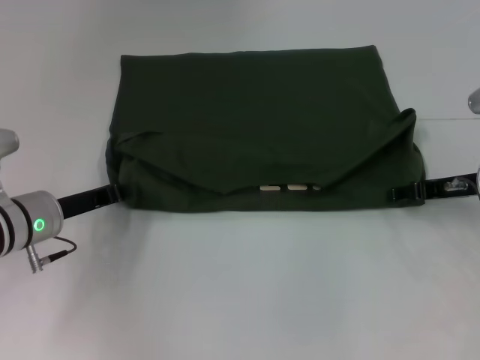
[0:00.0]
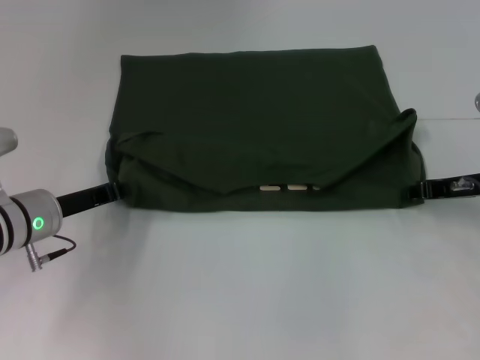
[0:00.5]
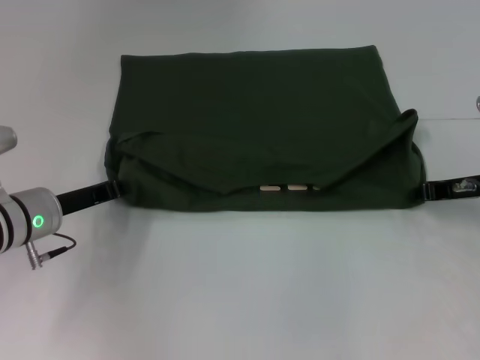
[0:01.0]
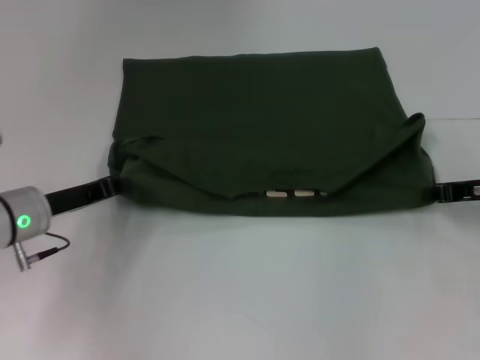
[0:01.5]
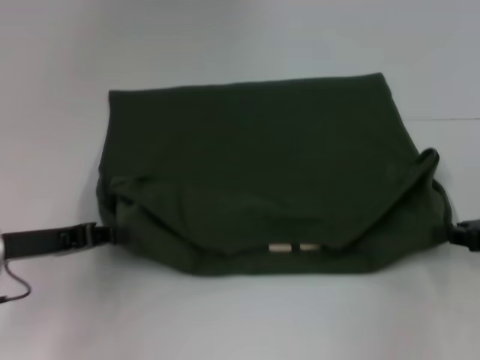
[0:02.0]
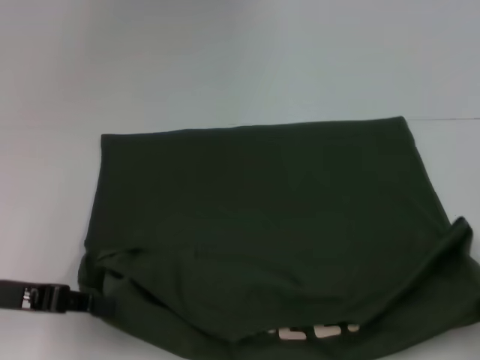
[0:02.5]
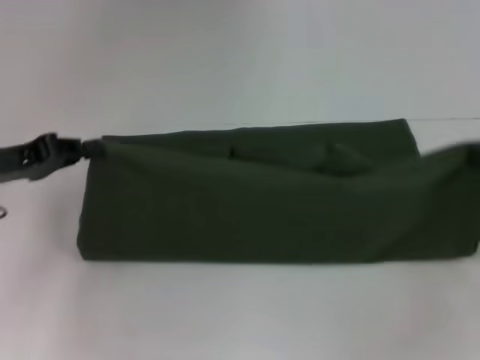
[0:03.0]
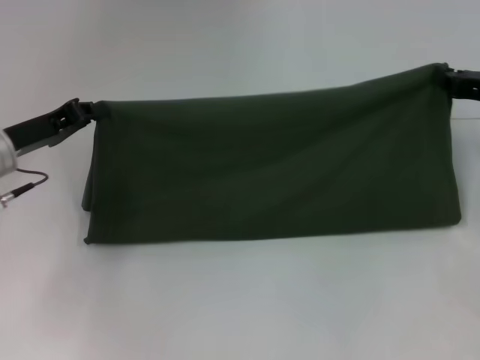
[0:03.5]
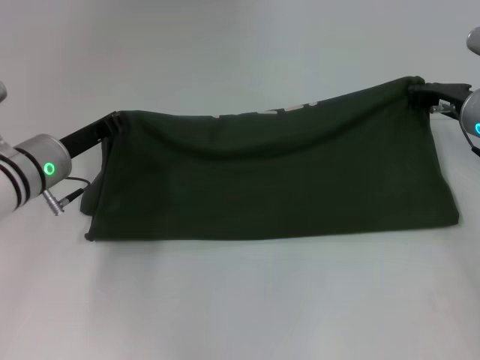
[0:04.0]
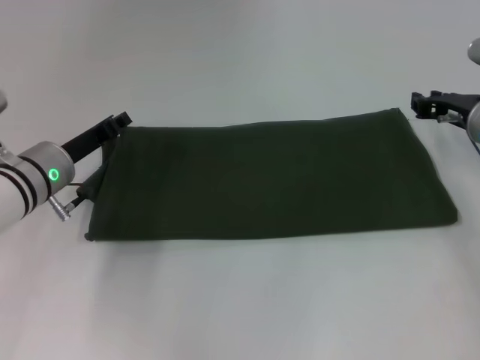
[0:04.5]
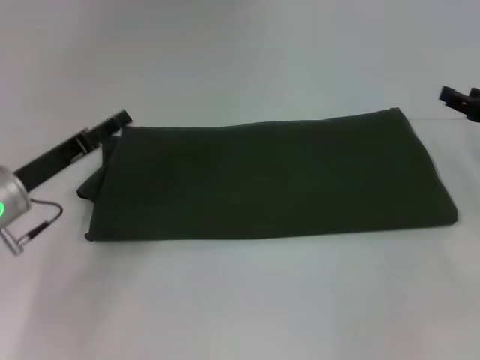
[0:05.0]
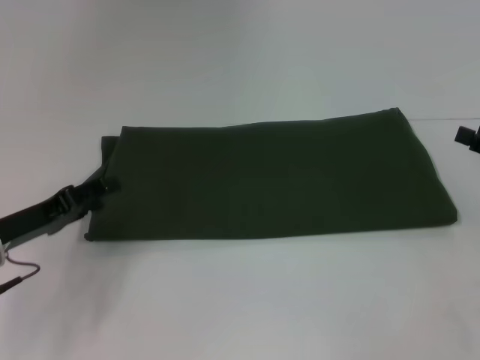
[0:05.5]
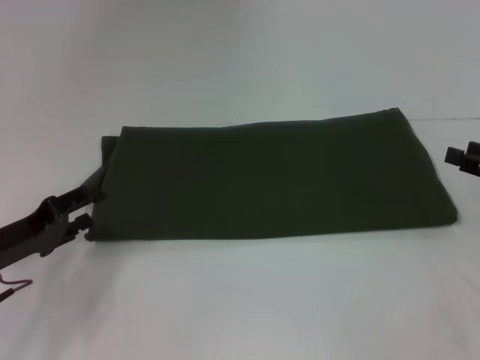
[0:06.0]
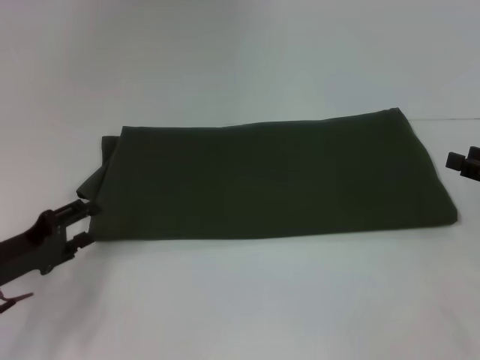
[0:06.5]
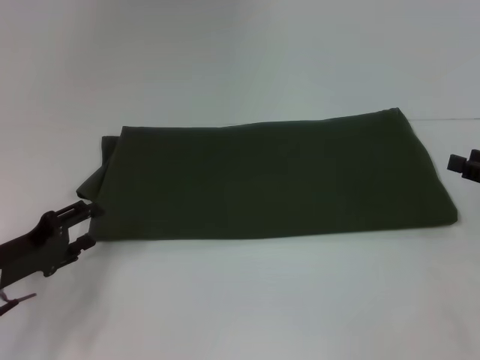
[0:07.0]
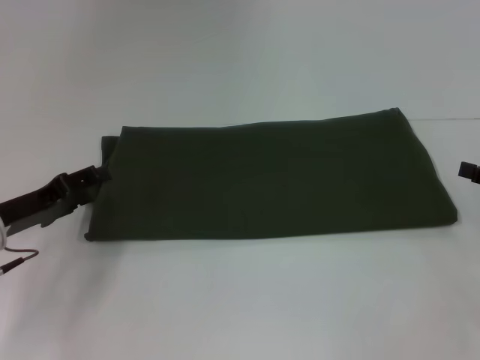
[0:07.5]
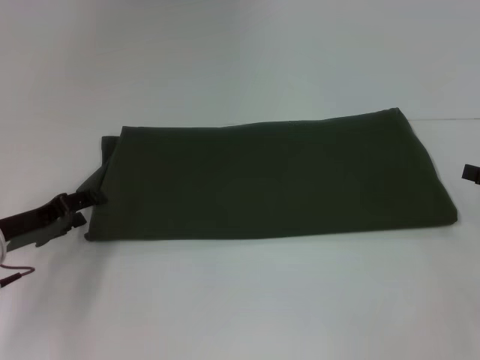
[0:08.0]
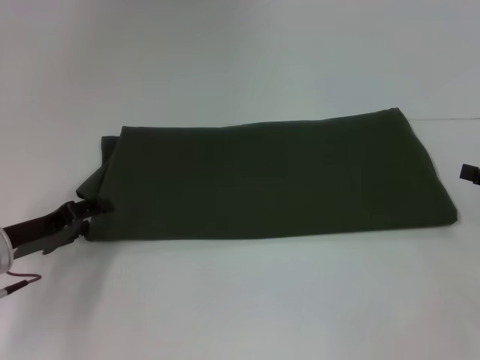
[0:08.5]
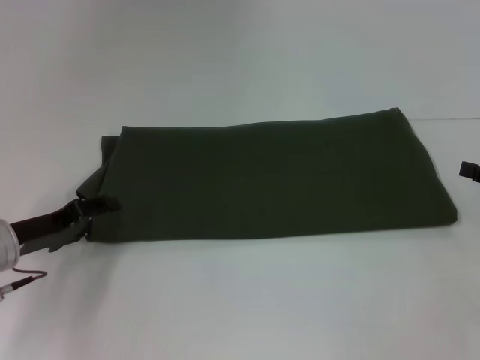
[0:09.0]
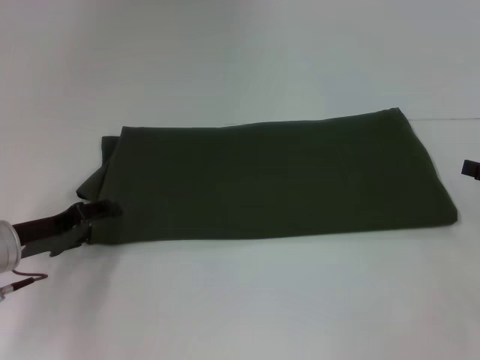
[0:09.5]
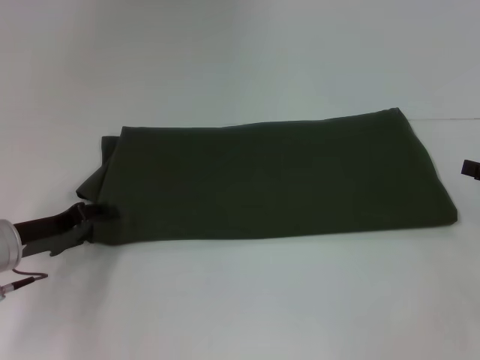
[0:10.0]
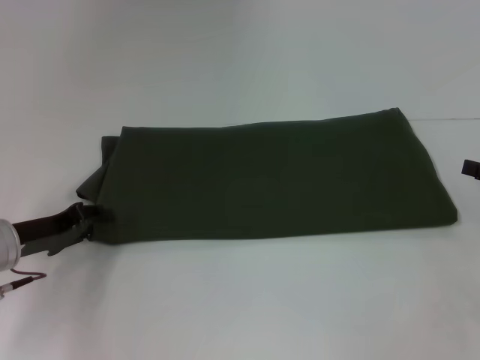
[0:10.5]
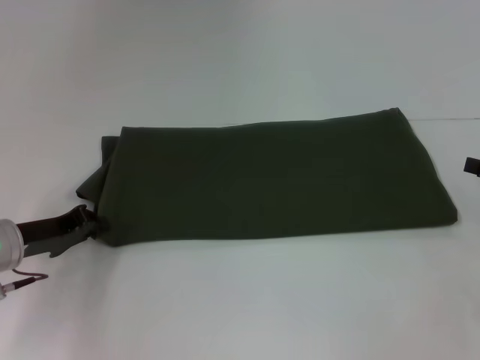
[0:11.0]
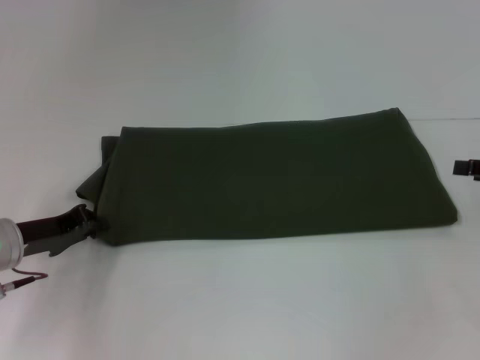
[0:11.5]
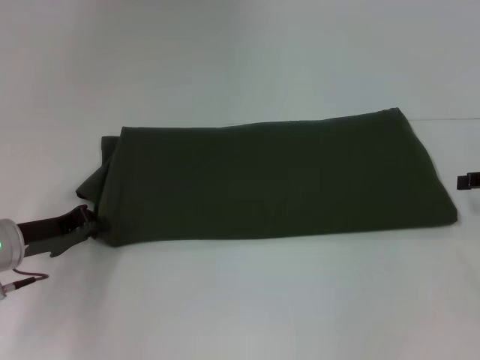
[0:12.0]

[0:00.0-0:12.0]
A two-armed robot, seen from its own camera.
Step, 0:00.0 to 0:02.5: Pull the clothes with your left hand.
Step, 0:00.0 to 0:02.5: Pull the clothes with your right hand.
Step, 0:03.0 to 0:04.0: Fold the clothes with your left hand.
Step, 0:03.0 to 0:04.0: Fold the clothes with your right hand.
0:00.0 to 0:02.0: The right gripper travels backward and to the right by roughly 10 cm, and closes its fingers. Meanwhile the left gripper is displaced backward by some 5 cm.
0:02.0 to 0:04.0: The right gripper goes approximately 15 cm forward and to the left. Meanwhile the left gripper moves forward and to the right, approximately 10 cm.
0:04.0 to 0:06.0: The left gripper moves backward and to the left, roughly 15 cm, and opens up. Meanwhile the right gripper heads backward and to the right, covering about 15 cm, and opens up.
0:06.0 to 0:10.0: There are only small adjustments of the grippers.

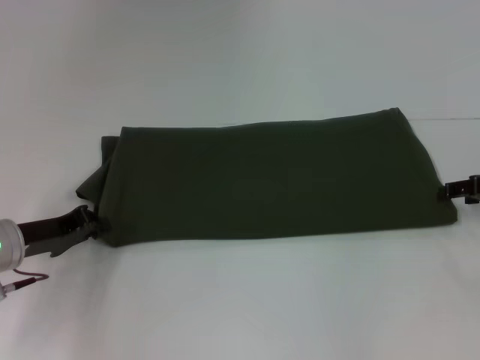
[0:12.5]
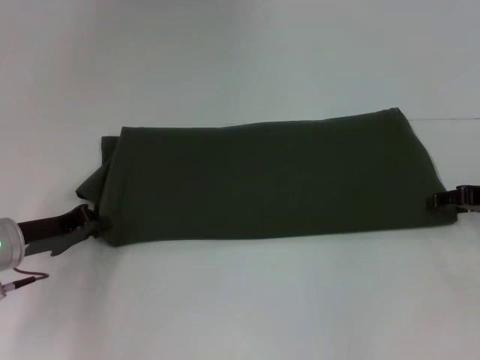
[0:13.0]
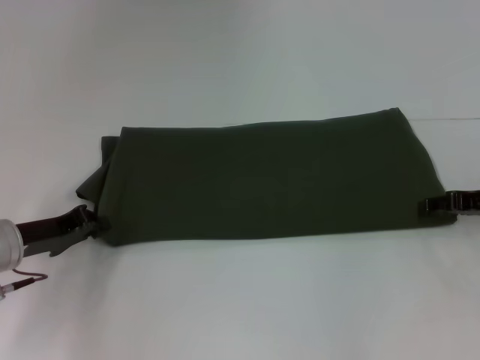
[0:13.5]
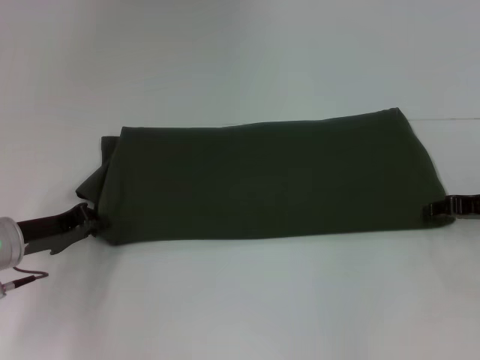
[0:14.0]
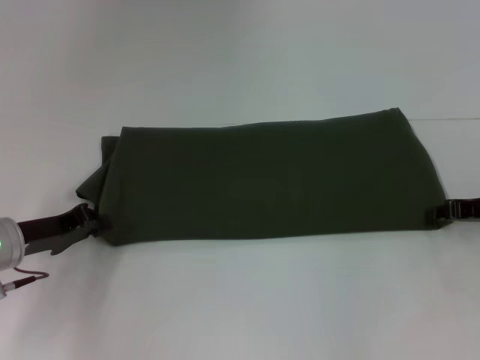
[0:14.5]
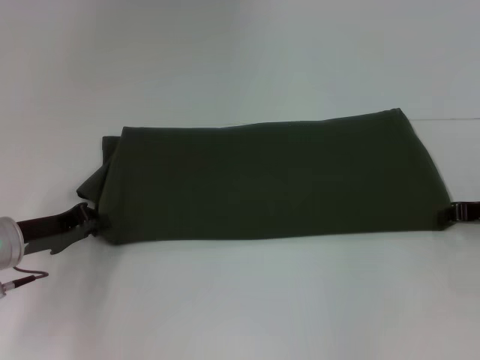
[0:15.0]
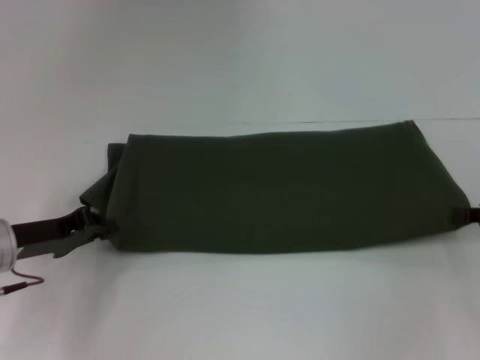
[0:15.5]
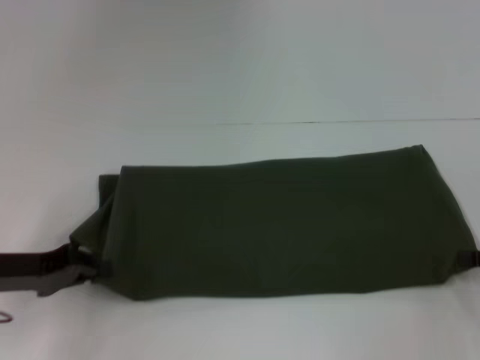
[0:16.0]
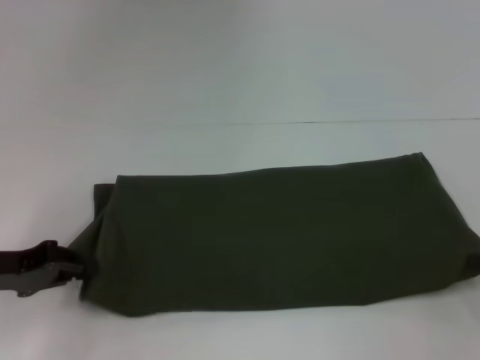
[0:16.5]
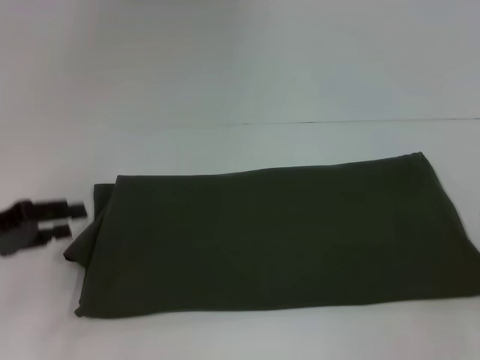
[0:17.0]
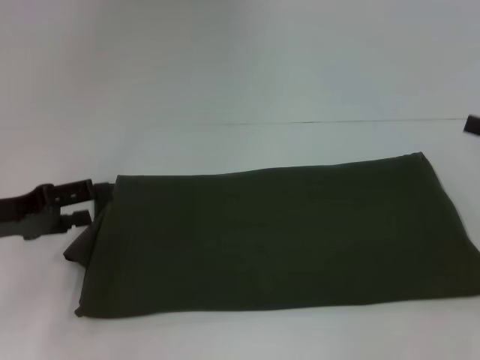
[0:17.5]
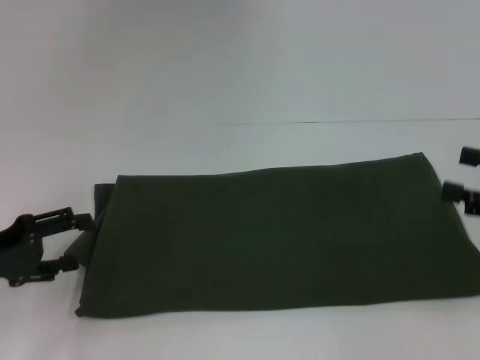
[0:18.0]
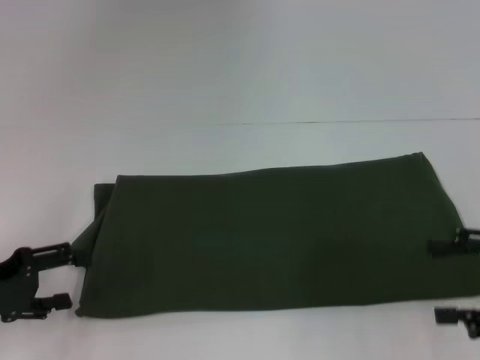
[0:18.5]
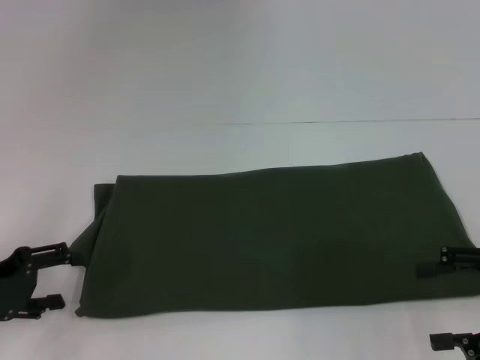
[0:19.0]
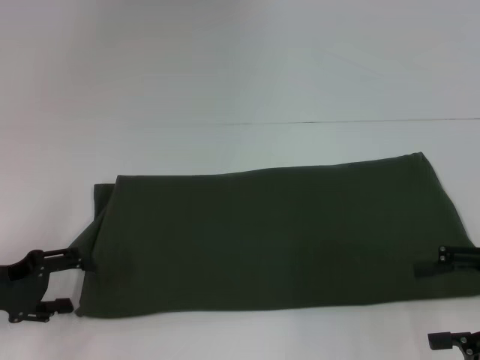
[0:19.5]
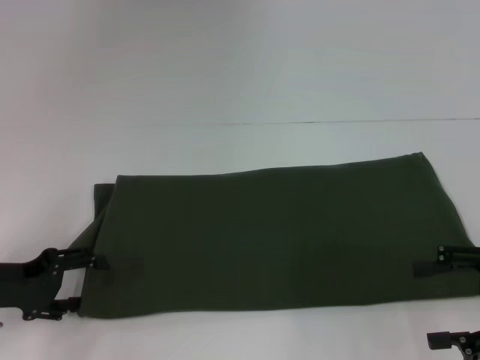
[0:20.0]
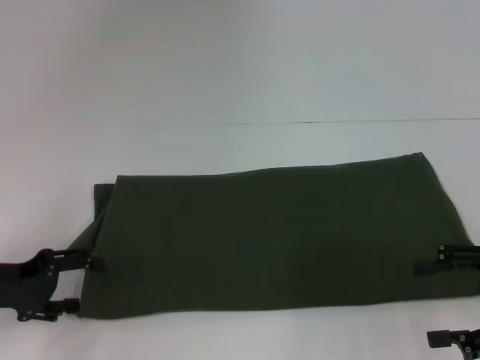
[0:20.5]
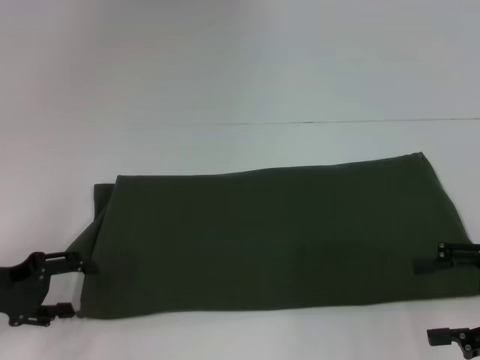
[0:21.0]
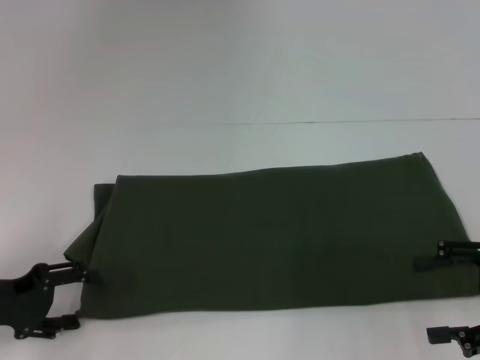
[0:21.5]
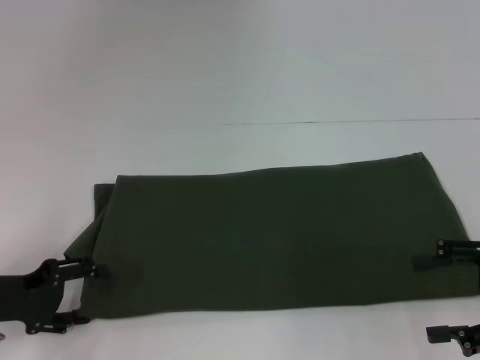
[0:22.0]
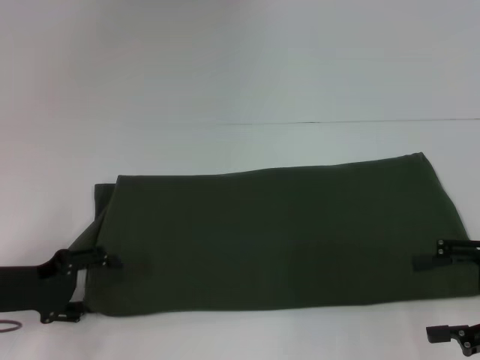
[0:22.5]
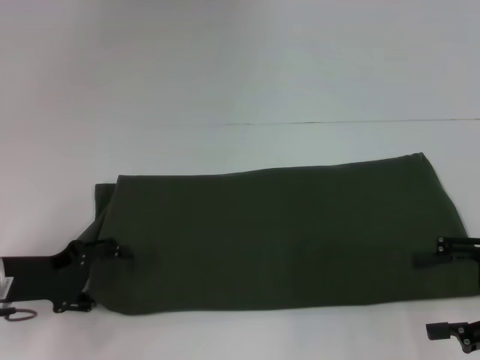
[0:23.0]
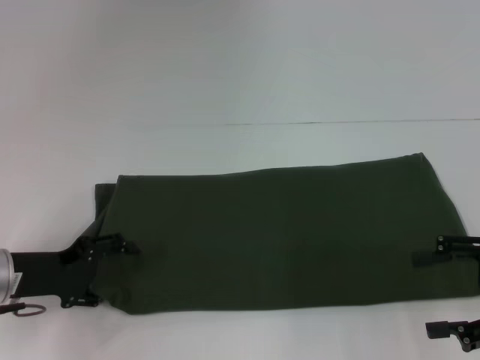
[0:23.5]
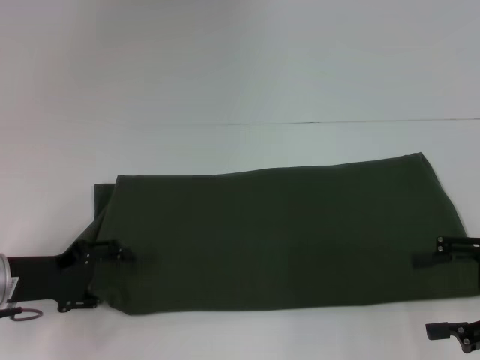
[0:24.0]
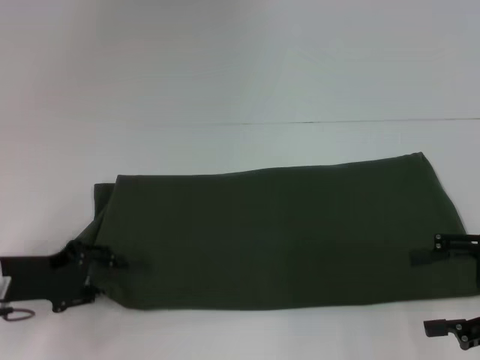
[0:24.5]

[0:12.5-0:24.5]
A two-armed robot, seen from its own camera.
Step, 0:12.5 to 0:17.0: Pull the clothes with your left hand.
Step, 0:12.5 to 0:17.0: Pull the clothes with your right hand.
0:12.5 to 0:14.5: The right gripper closes up.
0:14.5 to 0:16.5: The left gripper changes place by approximately 5 cm. Meanwhile the right gripper travels backward and to the right by some 10 cm.
0:16.5 to 0:18.5: The left gripper opens, while the right gripper ends up about 5 cm from where it was, and opens up.
0:18.5 to 0:22.5: There are only small adjustments of the grippers.
0:22.5 to 0:24.5: The left gripper closes its fingers.

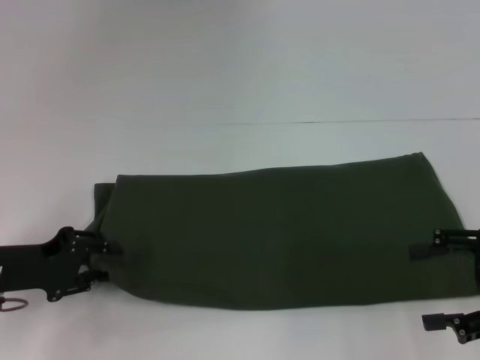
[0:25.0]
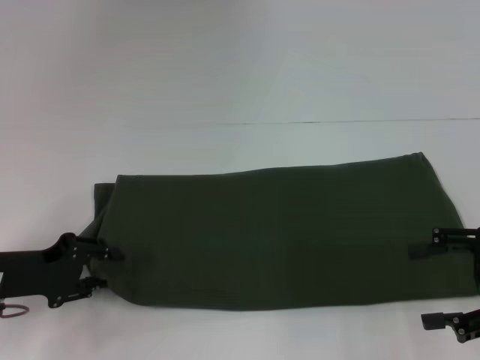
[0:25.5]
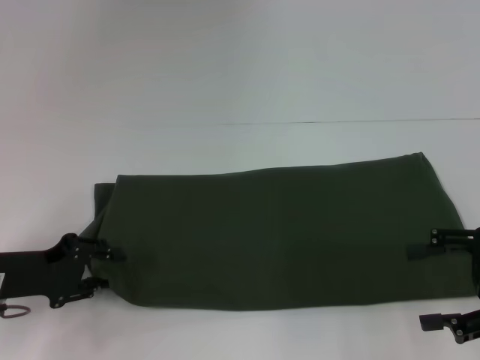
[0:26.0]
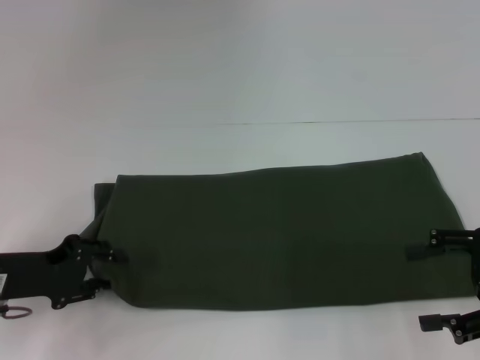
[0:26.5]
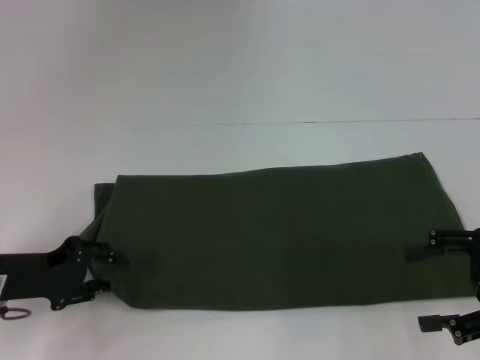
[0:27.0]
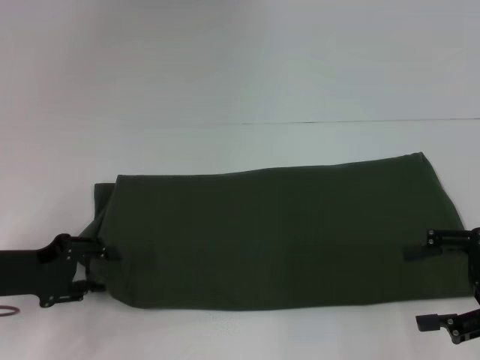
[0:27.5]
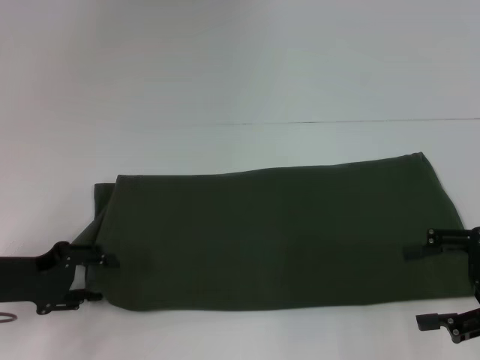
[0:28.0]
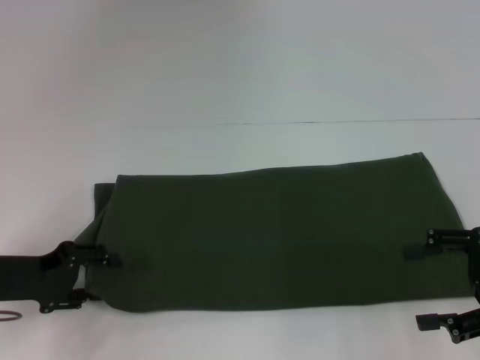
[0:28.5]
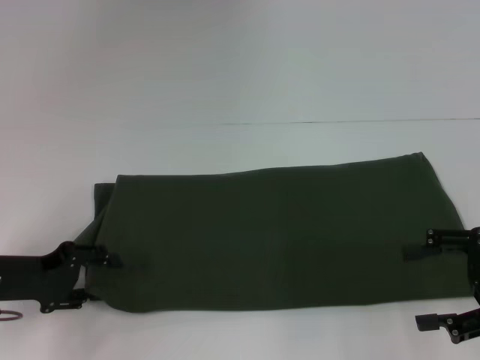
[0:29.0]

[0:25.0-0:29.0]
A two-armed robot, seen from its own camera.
0:25.0 to 0:27.0: Neither gripper changes place.
0:27.0 to 0:29.0: The two grippers keep their place.
